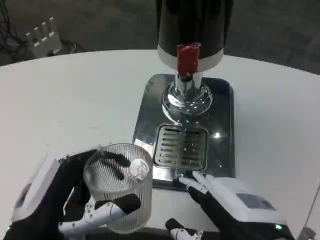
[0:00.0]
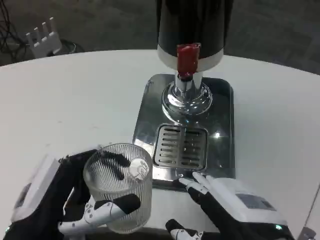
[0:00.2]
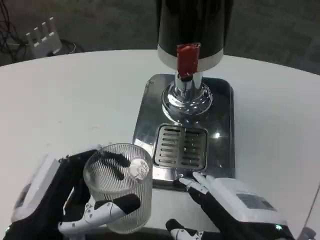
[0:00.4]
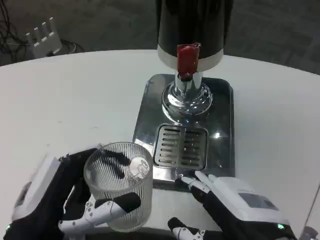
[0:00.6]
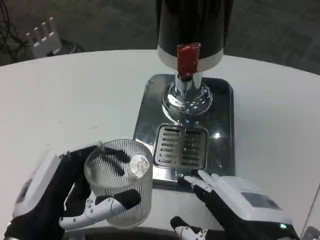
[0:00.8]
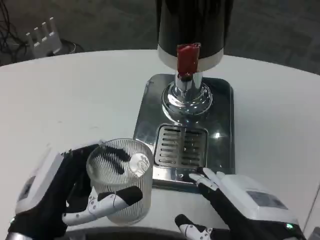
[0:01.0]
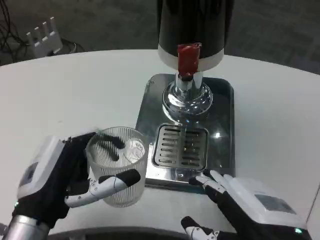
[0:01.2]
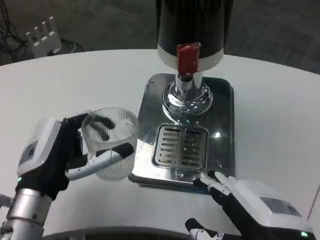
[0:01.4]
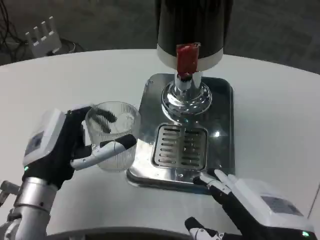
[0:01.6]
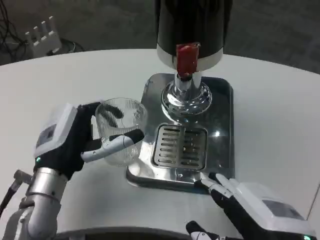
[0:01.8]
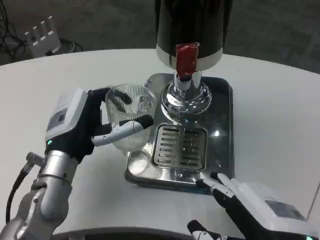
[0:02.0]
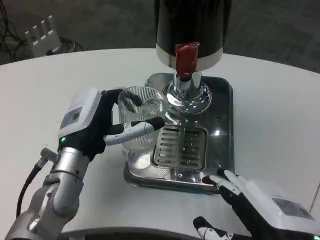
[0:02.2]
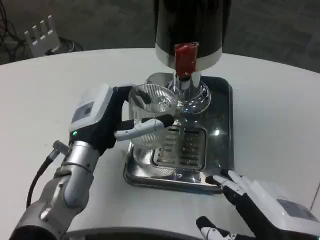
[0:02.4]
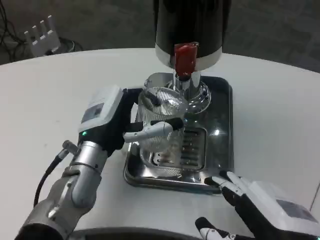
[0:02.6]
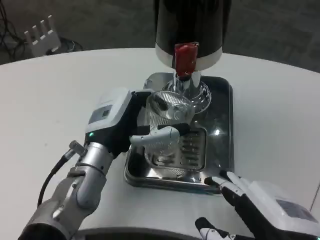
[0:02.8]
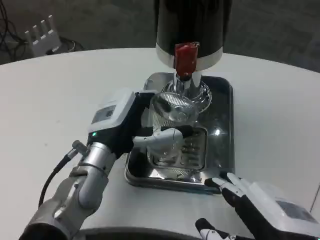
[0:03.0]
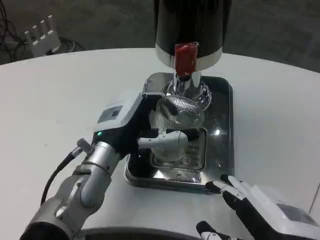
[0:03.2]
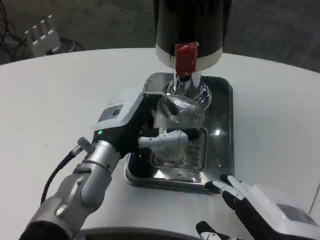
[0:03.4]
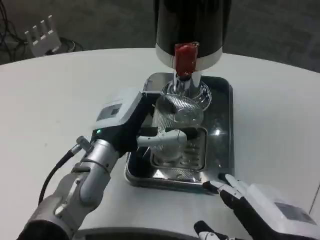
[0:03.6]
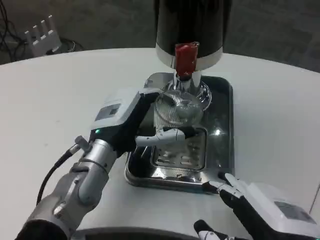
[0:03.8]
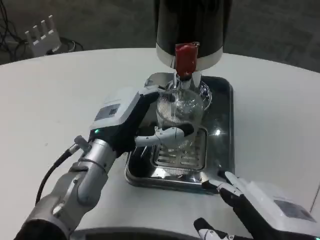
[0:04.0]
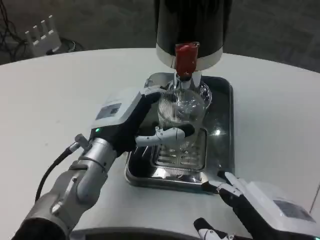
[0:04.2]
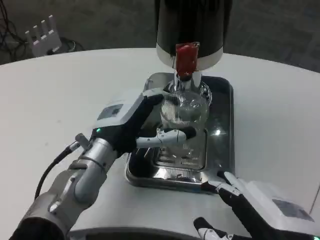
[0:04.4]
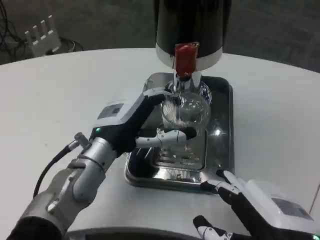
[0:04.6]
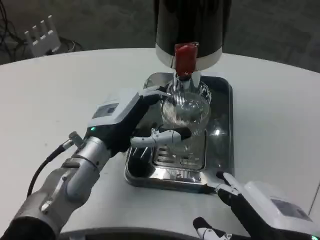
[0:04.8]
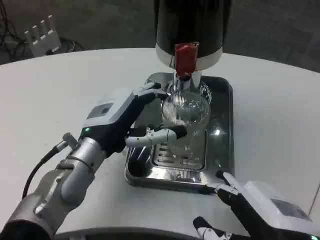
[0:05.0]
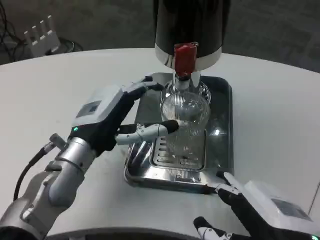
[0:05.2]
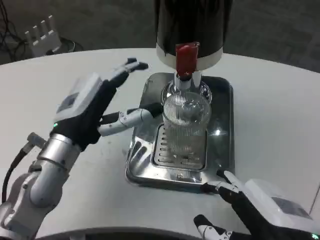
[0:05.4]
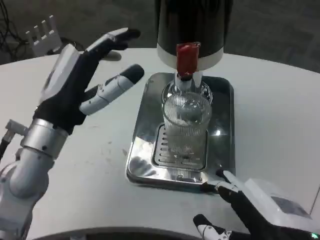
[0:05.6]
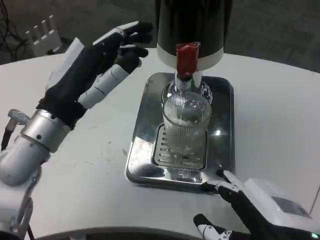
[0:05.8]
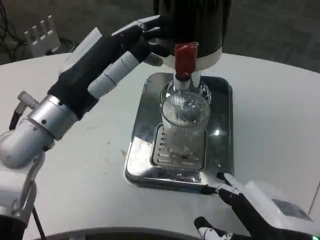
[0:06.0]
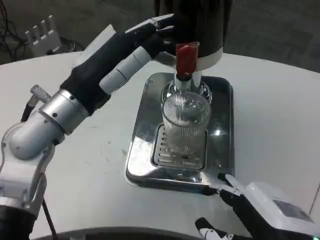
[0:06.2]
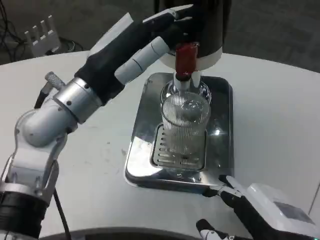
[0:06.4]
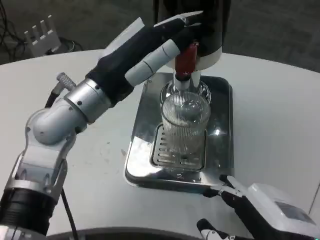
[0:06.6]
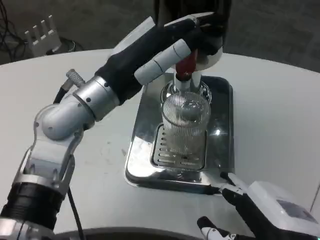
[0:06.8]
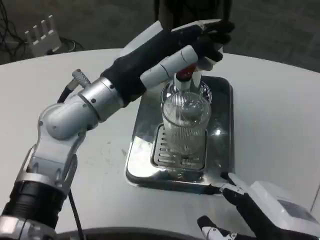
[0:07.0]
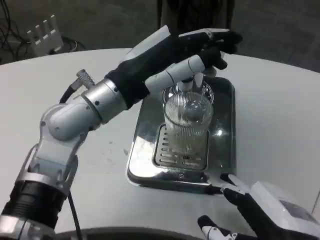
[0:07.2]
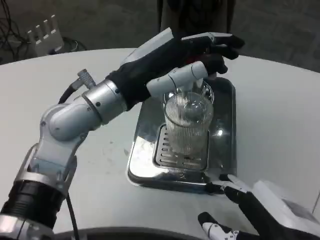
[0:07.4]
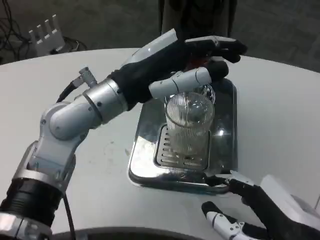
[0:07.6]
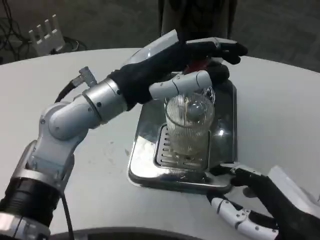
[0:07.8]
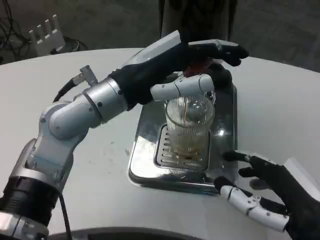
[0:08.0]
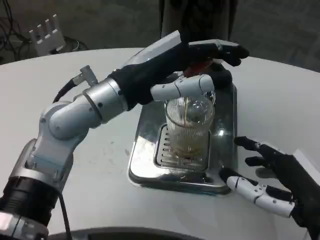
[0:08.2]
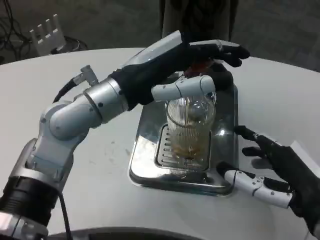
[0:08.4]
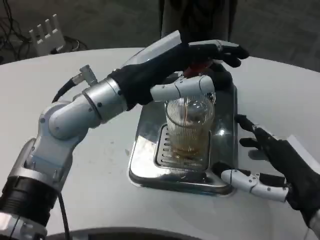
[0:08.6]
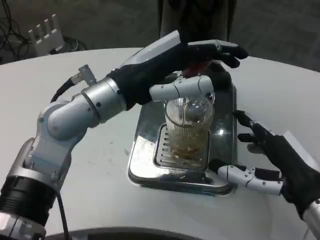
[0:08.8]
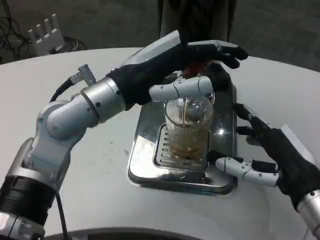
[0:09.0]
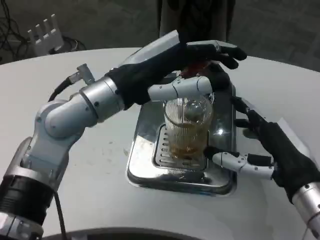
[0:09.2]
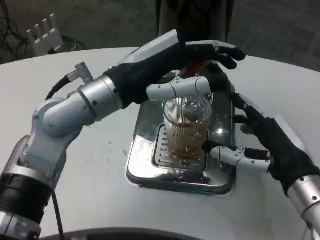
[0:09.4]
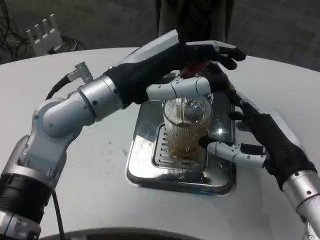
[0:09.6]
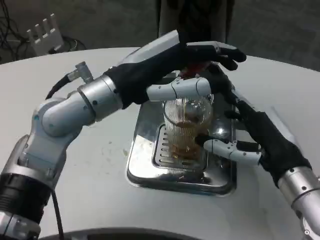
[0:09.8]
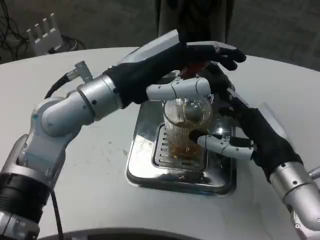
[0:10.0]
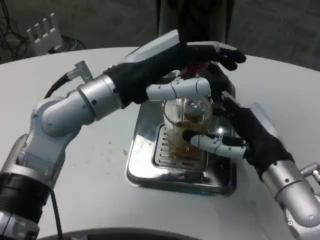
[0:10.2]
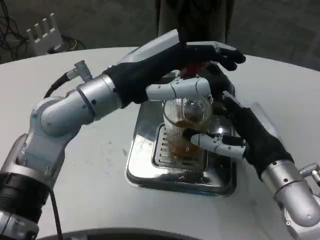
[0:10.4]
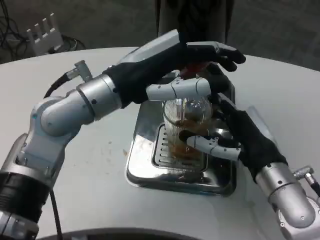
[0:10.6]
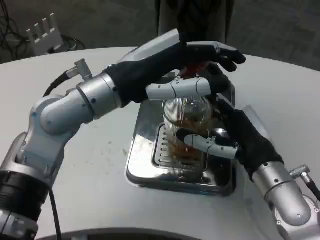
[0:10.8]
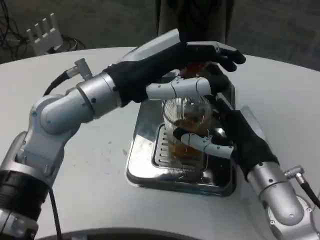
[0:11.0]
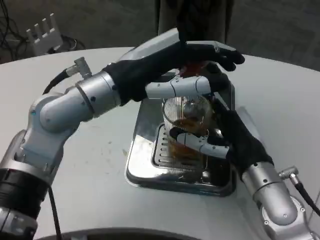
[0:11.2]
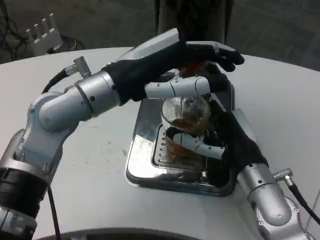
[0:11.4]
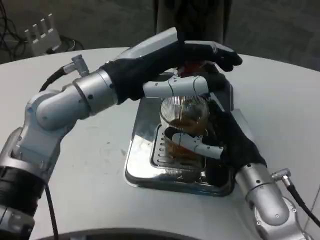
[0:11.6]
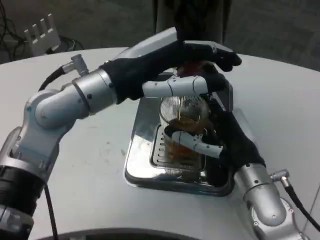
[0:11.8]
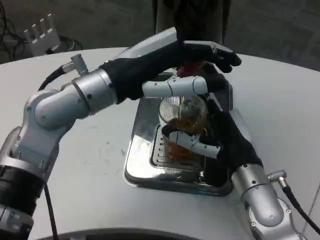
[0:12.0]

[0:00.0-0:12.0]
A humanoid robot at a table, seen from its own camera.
Task of the whole recording: Grasp the cup under the faucet to collect the drink, then remove the cup.
0:00.0 to 0:01.6: The left hand moves forward, roughly 10 cm.
0:01.6 to 0:03.0: The left hand moves to the right and forward, roughly 10 cm.
0:03.0 to 0:04.4: There are only small adjustments of the hands.
0:04.4 to 0:06.0: The left hand shifts roughly 10 cm upward.
0:06.0 to 0:07.6: The left hand heads to the right, covering about 5 cm.
0:07.6 to 0:09.0: The right hand is displaced forward by about 10 cm.
0:09.0 to 0:10.4: The right hand heads forward, covering roughly 5 cm.

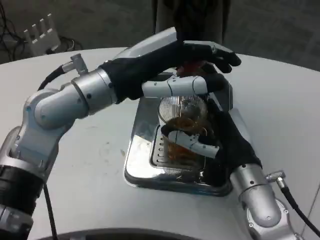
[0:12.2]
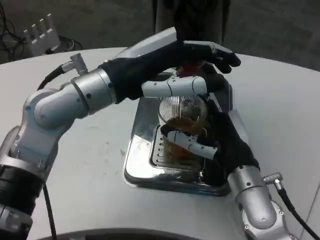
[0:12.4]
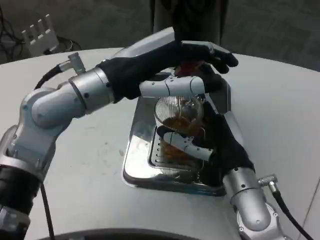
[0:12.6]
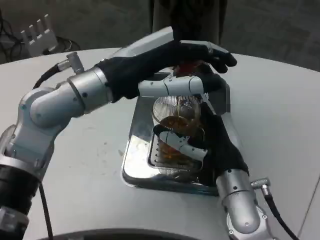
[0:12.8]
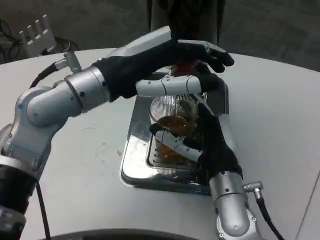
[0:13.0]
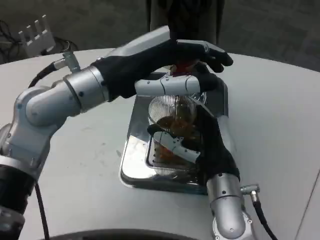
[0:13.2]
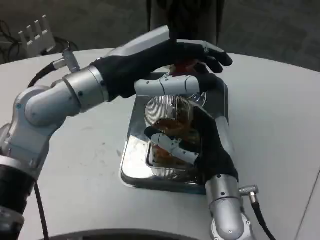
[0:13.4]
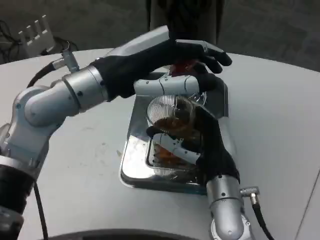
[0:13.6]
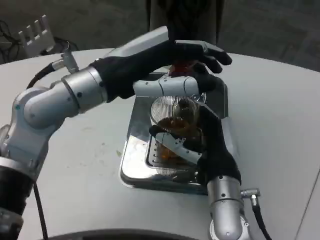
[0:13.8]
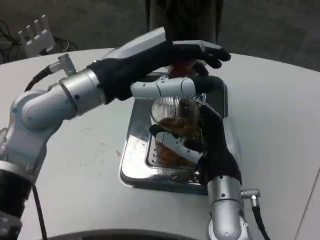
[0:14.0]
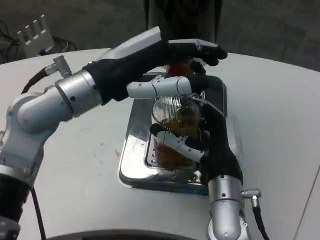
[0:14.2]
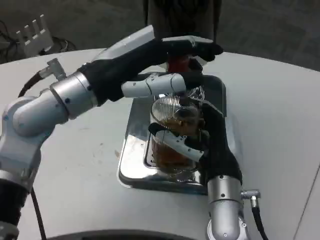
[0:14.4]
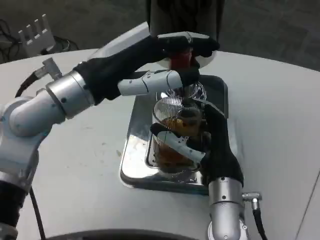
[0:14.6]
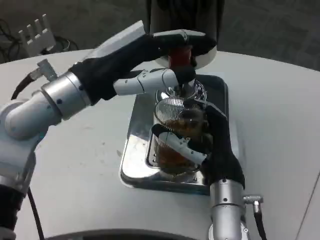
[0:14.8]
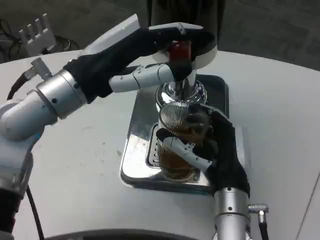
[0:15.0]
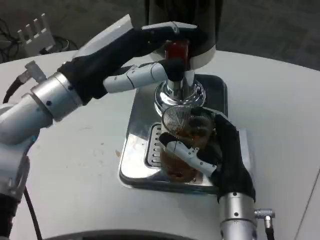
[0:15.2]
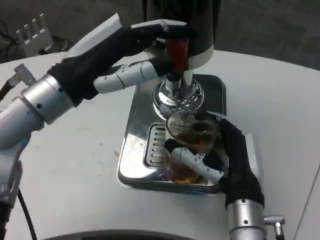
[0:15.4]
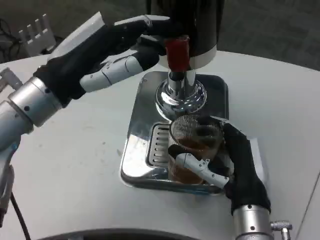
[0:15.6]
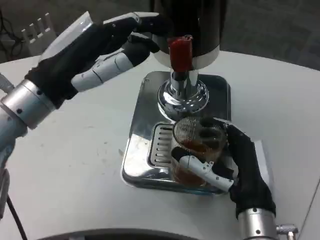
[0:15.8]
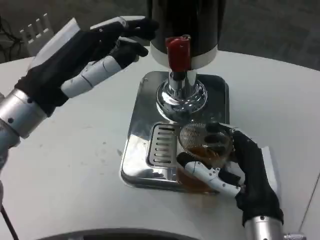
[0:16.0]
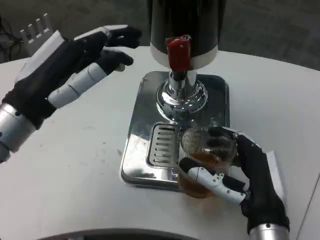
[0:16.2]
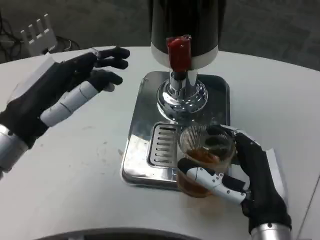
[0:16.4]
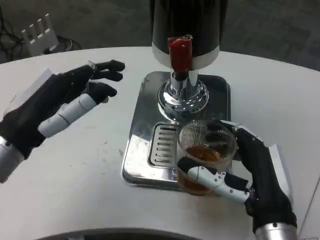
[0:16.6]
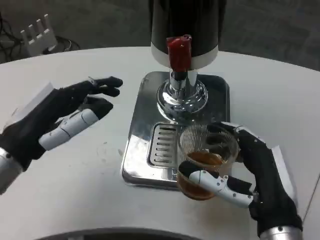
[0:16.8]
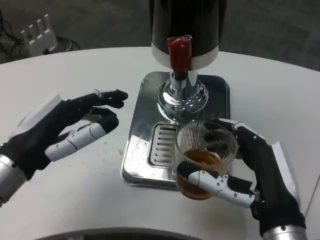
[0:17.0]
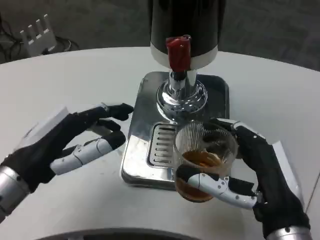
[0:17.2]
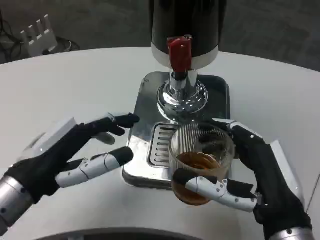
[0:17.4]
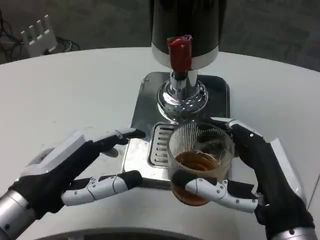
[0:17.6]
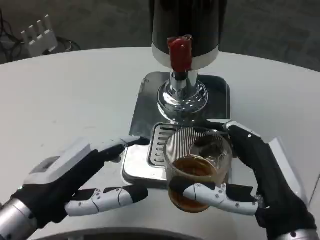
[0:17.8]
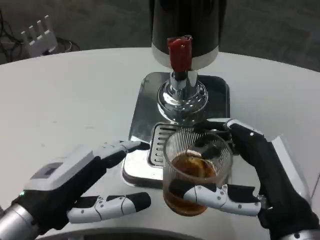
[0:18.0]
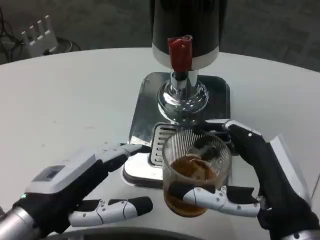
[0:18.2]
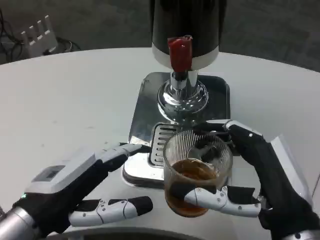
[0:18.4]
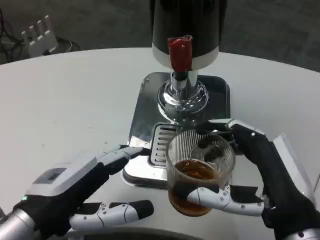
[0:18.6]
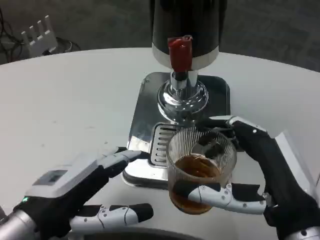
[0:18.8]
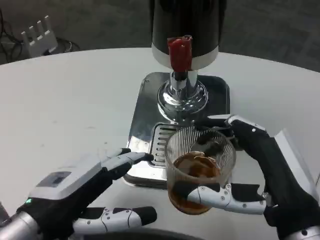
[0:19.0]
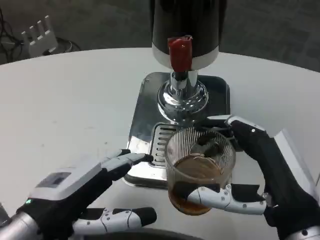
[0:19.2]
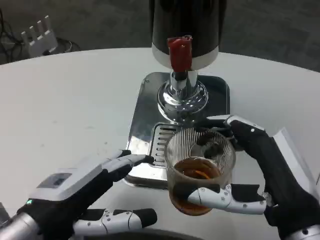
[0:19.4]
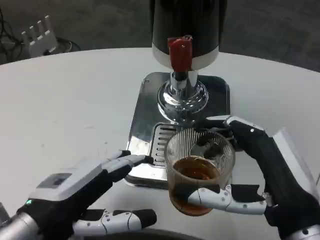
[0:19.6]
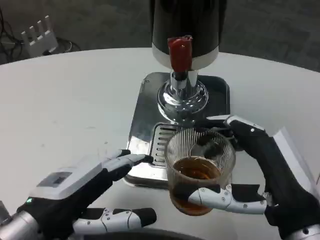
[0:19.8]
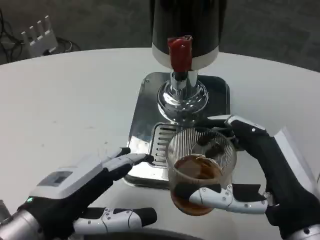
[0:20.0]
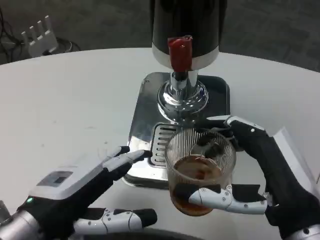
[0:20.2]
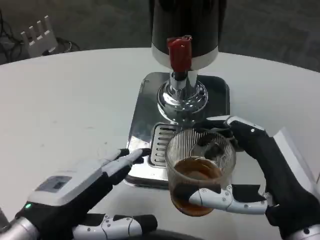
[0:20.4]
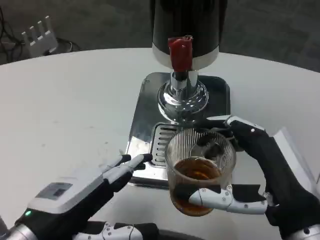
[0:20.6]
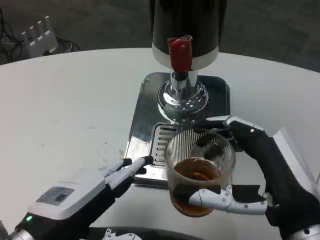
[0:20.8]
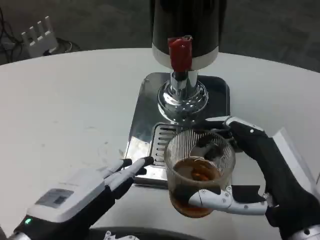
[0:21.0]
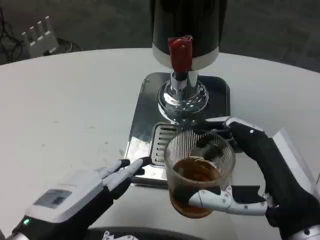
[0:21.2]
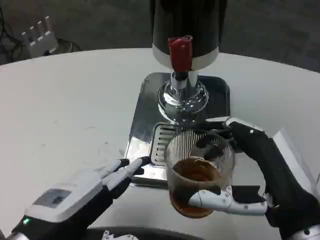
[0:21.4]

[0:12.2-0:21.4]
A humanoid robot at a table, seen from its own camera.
Task of the whole recording: Grasp the cup under the faucet to collect the drink, then remove the cup.
0:12.2 to 0:13.8: The right hand moves approximately 5 cm.
0:15.2 to 0:16.8: The left hand moves downward, to the left and backward, approximately 10 cm; the right hand heads backward, covering approximately 5 cm.
0:16.8 to 0:18.4: The left hand goes some 5 cm backward.
0:18.4 to 0:19.8: Both hands stay put.
0:19.8 to 0:21.4: The hands move only a little.

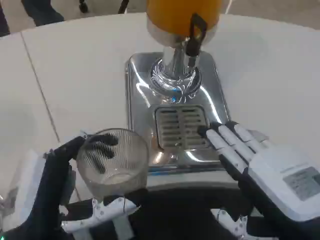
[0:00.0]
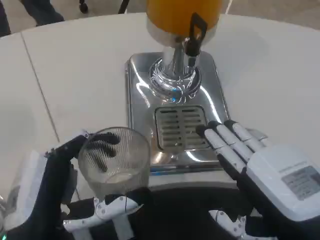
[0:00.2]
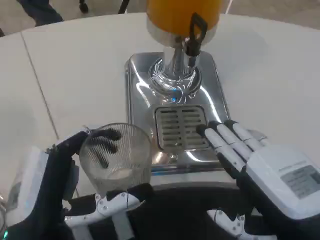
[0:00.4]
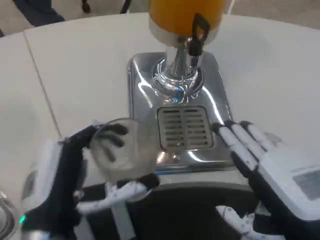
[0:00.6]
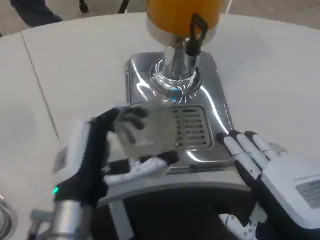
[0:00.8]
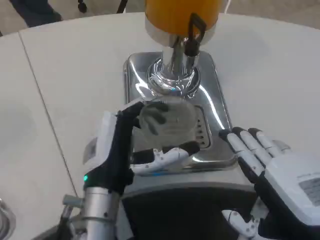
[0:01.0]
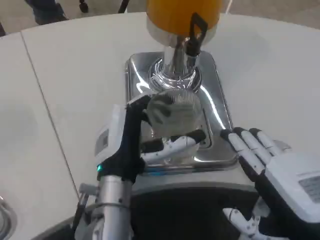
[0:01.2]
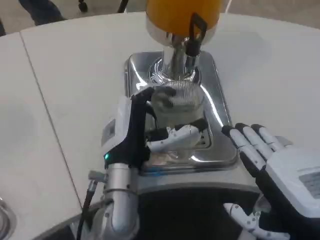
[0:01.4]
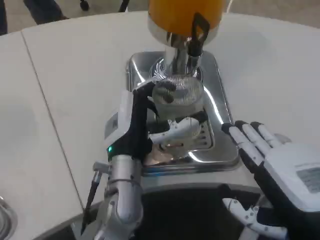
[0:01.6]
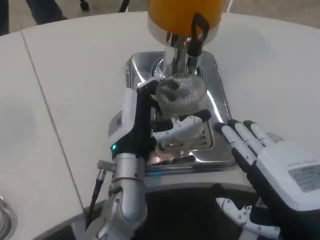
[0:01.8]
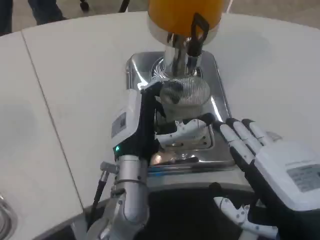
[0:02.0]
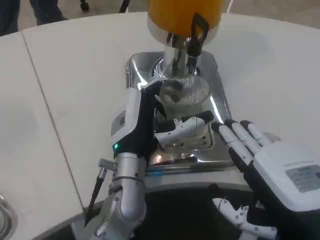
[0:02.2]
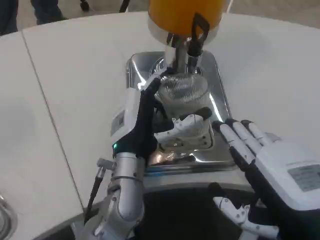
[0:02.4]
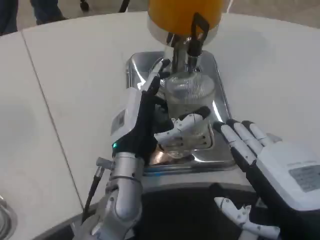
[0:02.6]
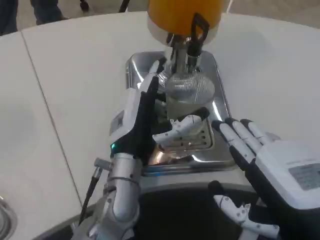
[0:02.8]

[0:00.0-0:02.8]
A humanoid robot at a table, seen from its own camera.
Task of the whole recording: Grasp the cup under the faucet to collect the drink, then remove the cup.
0:00.0 to 0:01.4: The left hand heads forward and to the right, covering about 20 cm.
0:01.4 to 0:02.8: The hands make only small movements.
